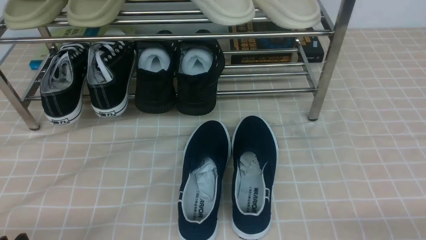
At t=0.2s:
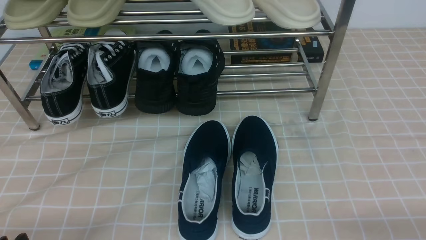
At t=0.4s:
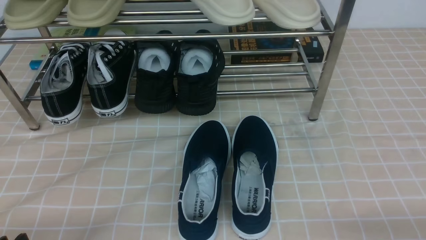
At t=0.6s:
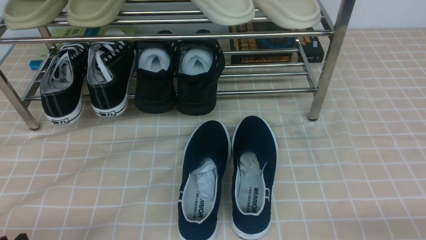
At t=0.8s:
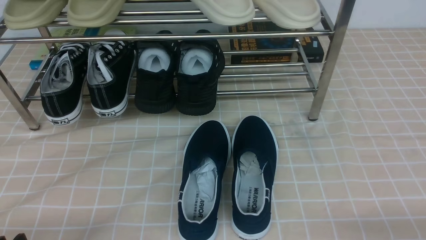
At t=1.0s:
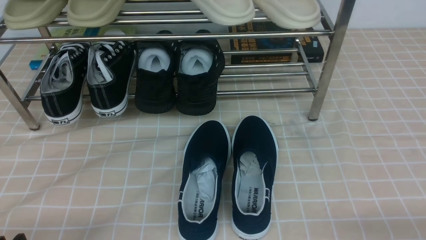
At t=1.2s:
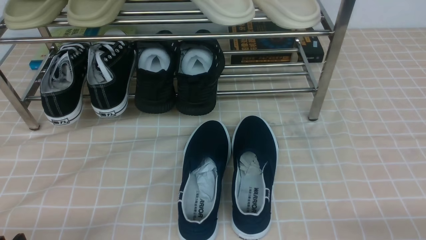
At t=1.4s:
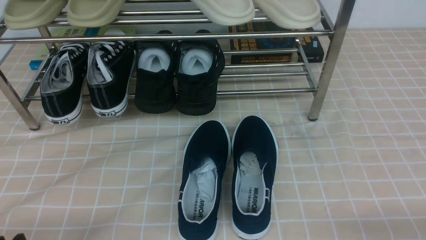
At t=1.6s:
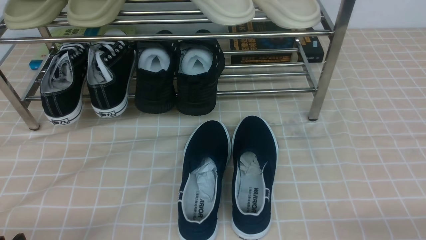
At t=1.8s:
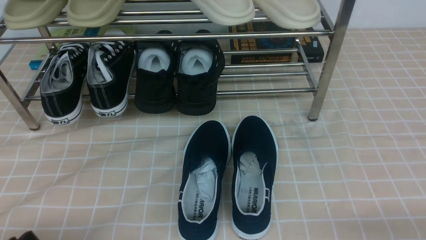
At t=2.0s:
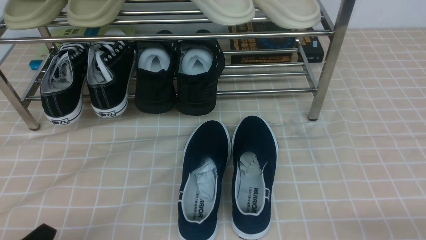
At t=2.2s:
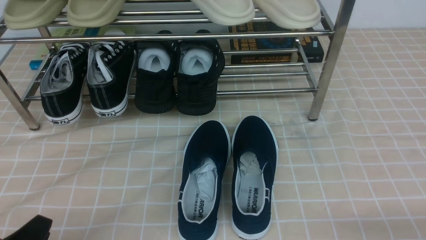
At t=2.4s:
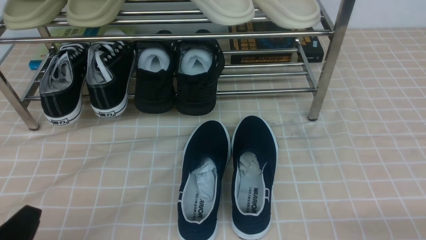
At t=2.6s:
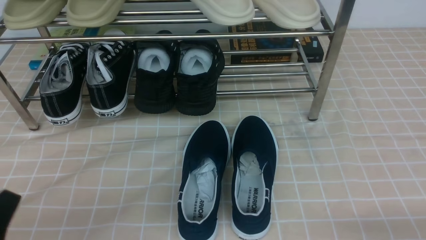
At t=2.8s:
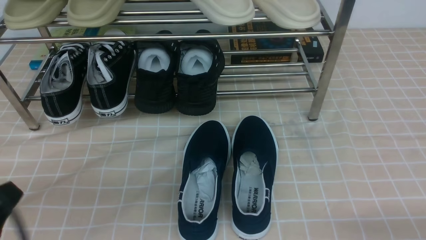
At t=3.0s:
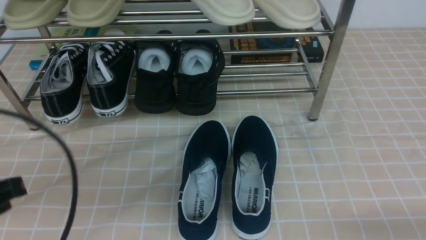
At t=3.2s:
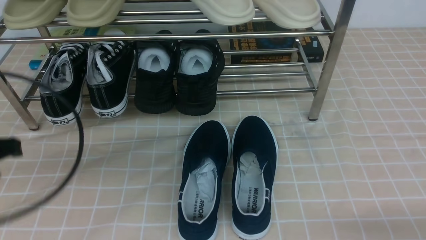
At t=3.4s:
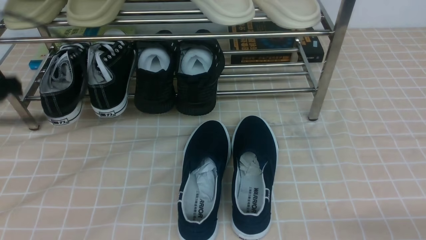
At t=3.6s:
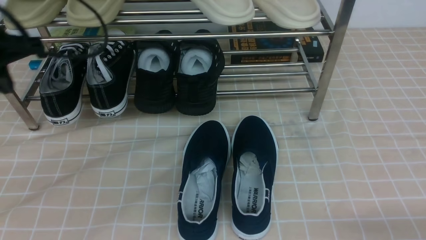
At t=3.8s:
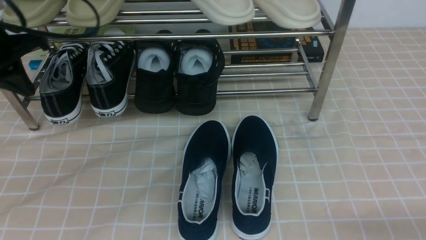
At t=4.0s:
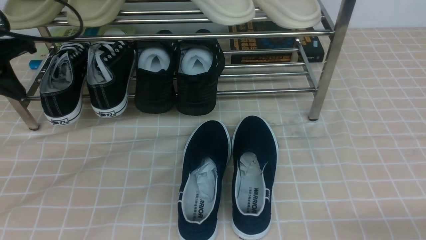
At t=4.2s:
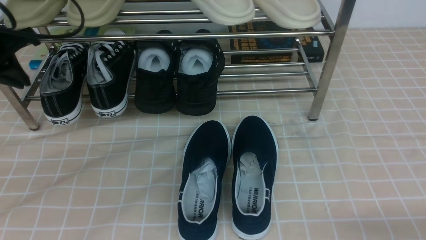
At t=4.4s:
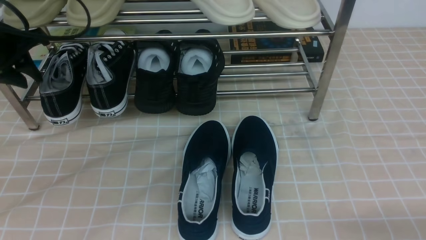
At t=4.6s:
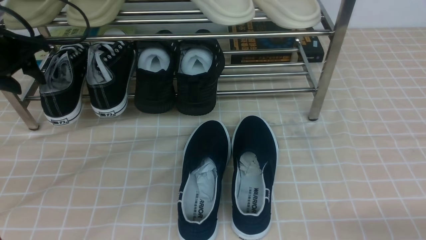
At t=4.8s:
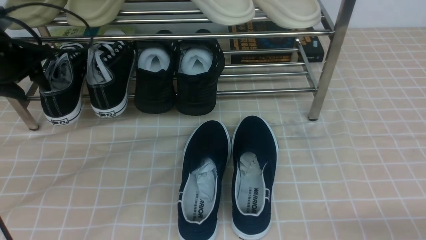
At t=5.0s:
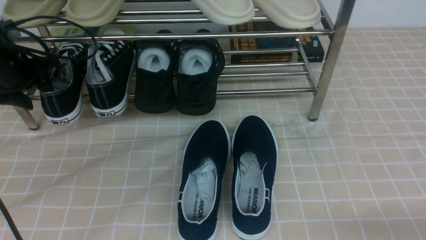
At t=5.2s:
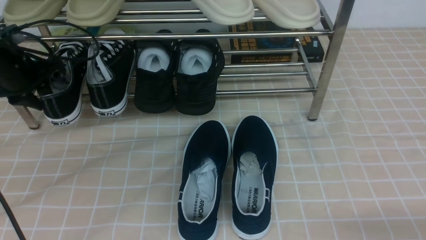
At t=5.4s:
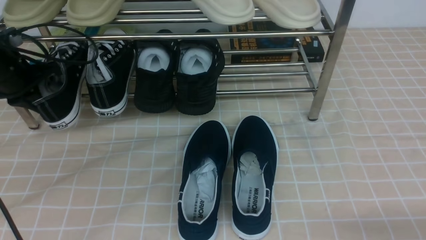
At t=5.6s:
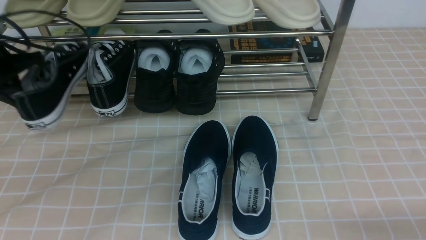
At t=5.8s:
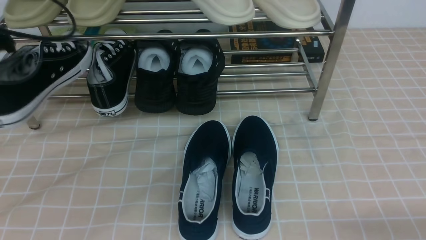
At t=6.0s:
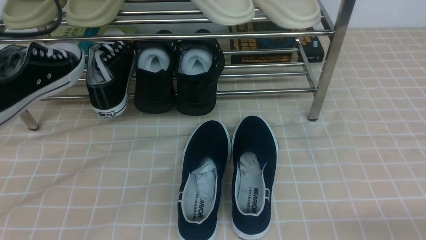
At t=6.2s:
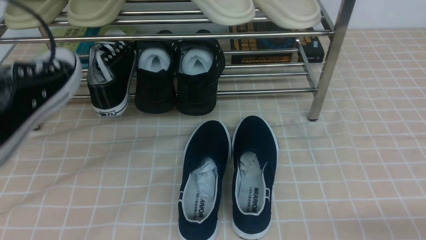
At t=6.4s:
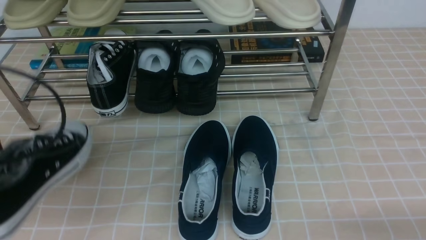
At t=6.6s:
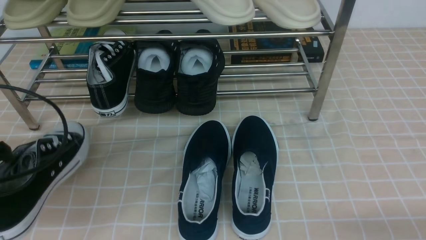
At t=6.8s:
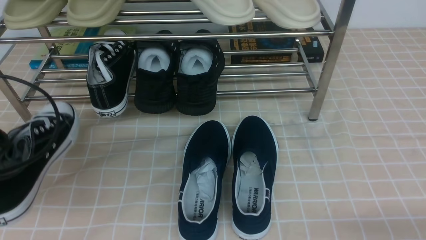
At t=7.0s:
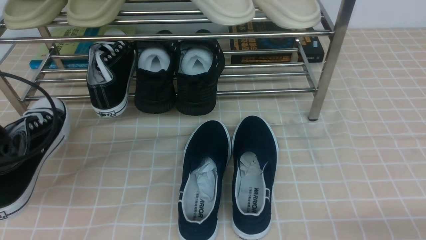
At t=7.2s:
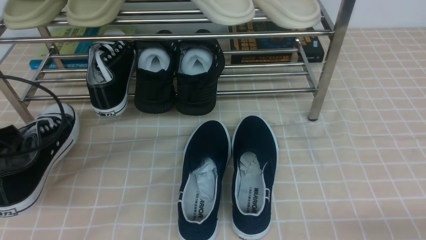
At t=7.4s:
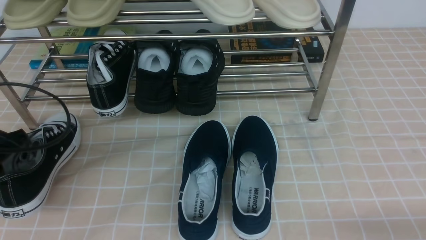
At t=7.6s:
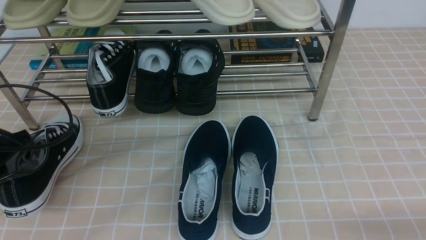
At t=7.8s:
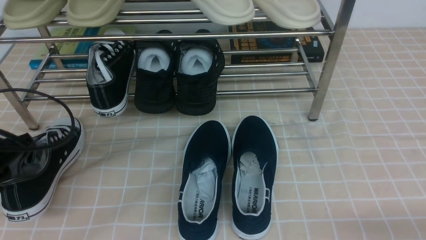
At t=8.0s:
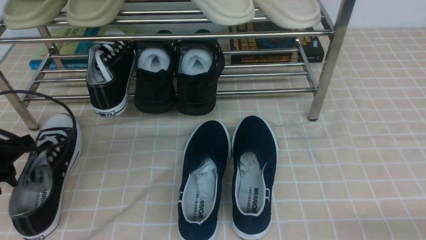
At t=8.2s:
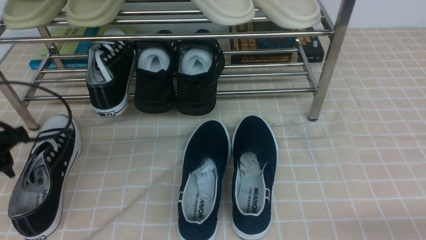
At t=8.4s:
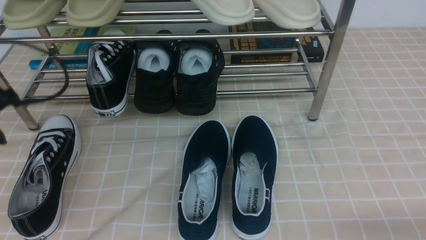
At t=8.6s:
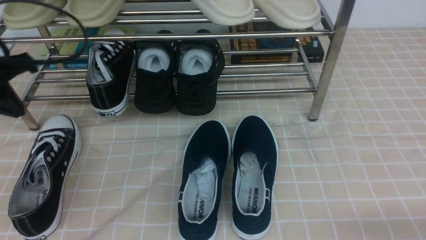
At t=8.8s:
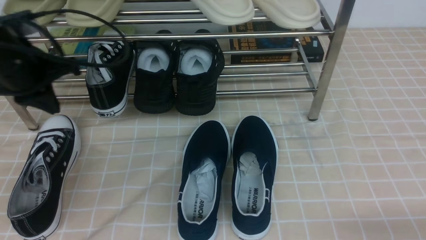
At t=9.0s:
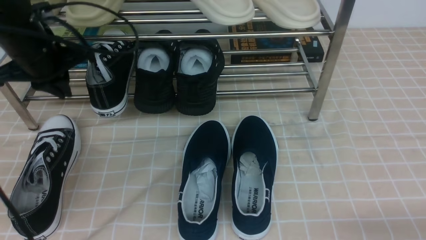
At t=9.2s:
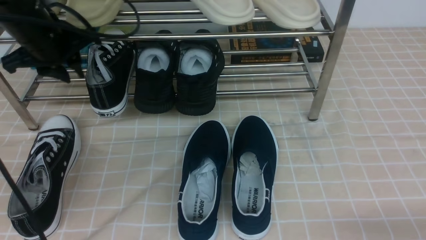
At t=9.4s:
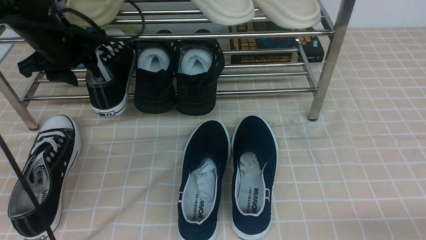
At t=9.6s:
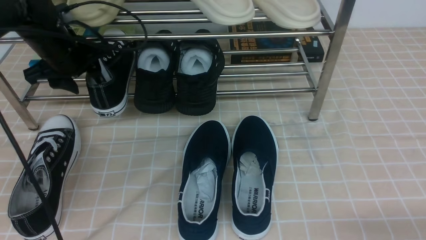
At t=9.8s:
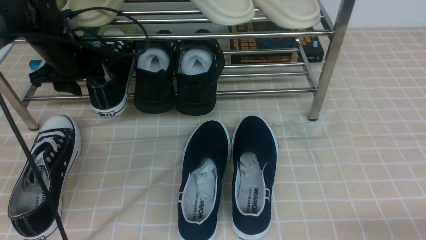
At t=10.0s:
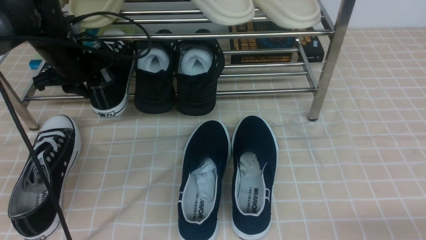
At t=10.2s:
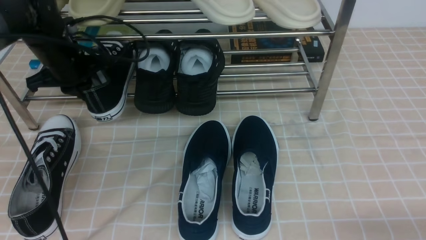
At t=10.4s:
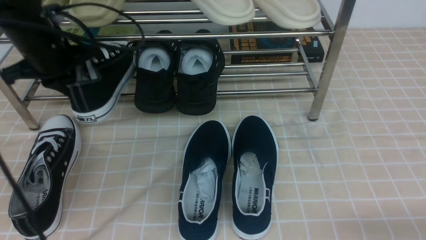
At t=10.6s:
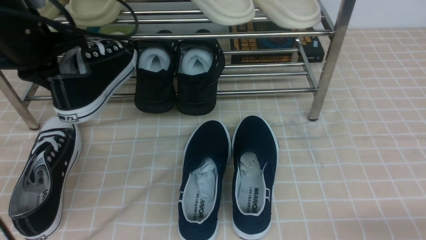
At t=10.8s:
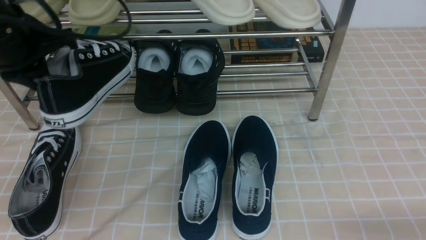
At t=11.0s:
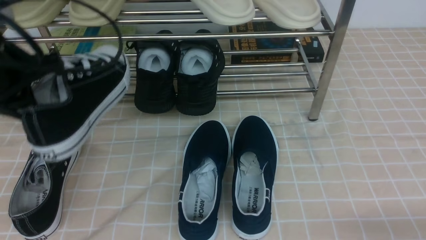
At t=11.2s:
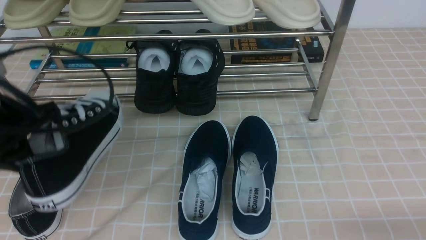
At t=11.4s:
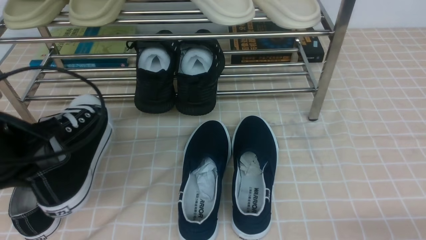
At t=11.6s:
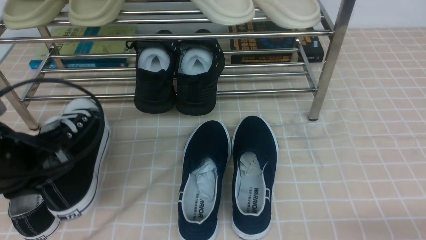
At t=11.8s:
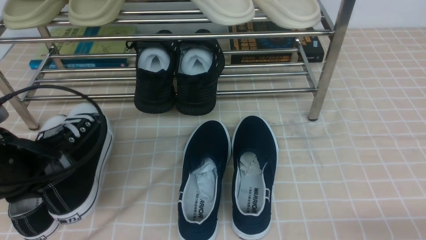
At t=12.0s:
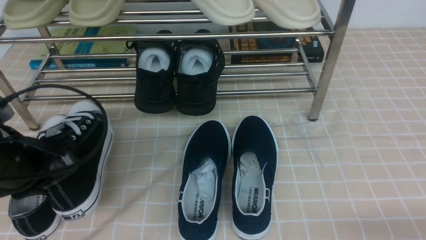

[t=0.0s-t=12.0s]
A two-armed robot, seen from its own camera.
Step, t=0.0s to t=5.2s: use the left arm to clamp a shoe on the left side of the shoe rack.
Step, t=5.4s to t=8.0s: Use your left arm to remove the clamped shoe from the shoe rack and put it down.
Step, t=8.4s to t=10.0s: use the left arm to clamp a shoe on the left side of the shoe rack.
t=0.0s to t=1.6s: Both grippers stay about where they are.
t=1.6s to t=3.0s: The left gripper moves upward and forward, some 15 cm, and closes its fingers.
t=3.0s to t=4.4s: The left gripper moves forward, some 25 cm, and opens up.
t=4.4s to t=6.0s: The left gripper goes about 15 cm backward and upward, and closes up.
t=6.0s to t=7.6s: The left gripper travels downward by about 15 cm.
t=7.6s to t=9.0s: The left gripper goes roughly 15 cm forward, upward and to the right, and opens, then closes again.
t=9.0s to t=10.4s: The left gripper opens, then closes again.
t=10.4s to t=12.0s: The left gripper travels backward and downward by roughly 15 cm.

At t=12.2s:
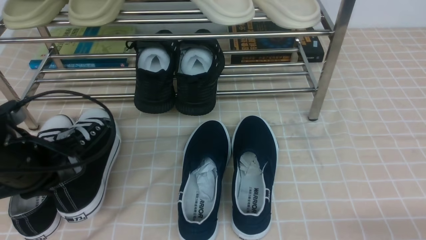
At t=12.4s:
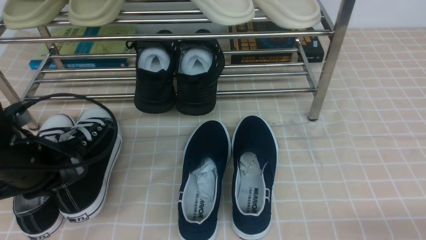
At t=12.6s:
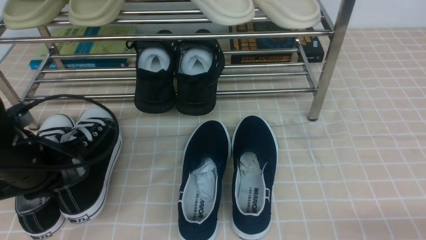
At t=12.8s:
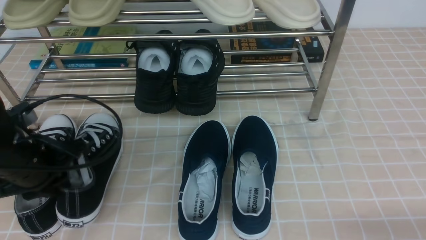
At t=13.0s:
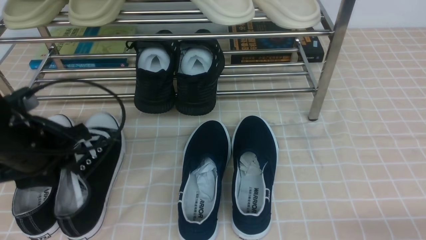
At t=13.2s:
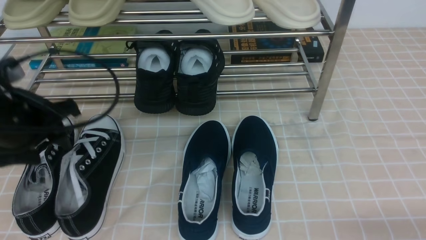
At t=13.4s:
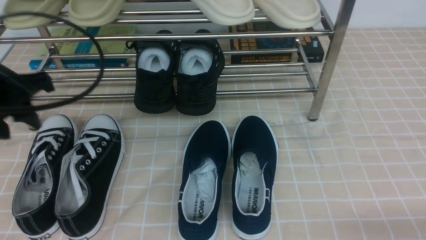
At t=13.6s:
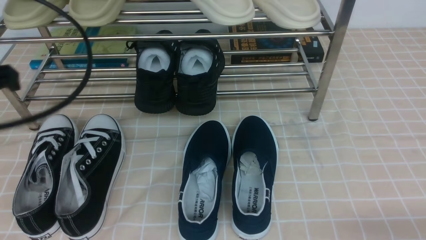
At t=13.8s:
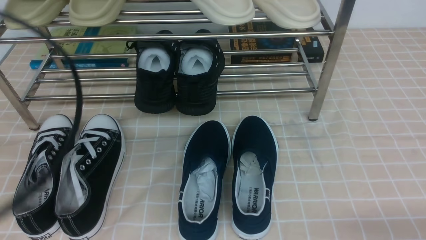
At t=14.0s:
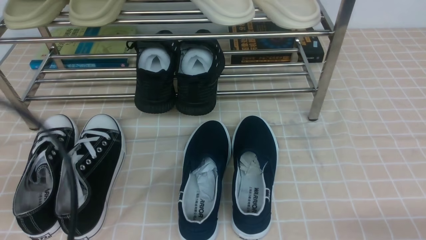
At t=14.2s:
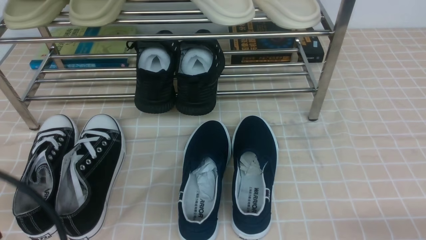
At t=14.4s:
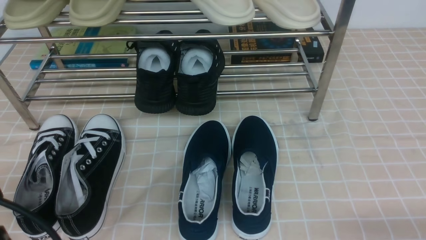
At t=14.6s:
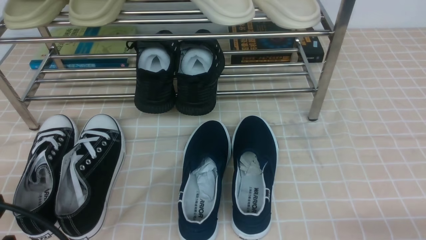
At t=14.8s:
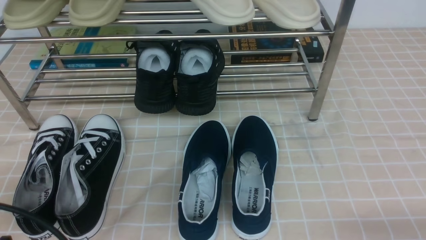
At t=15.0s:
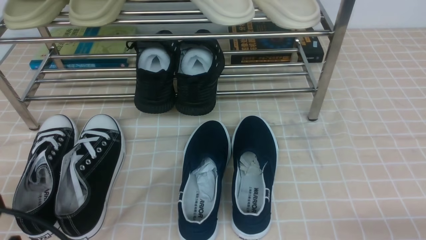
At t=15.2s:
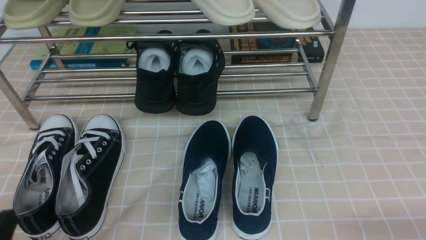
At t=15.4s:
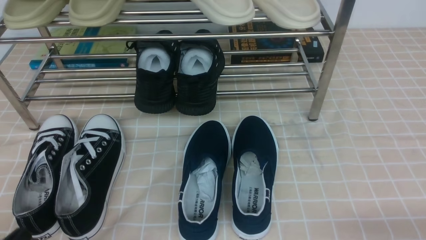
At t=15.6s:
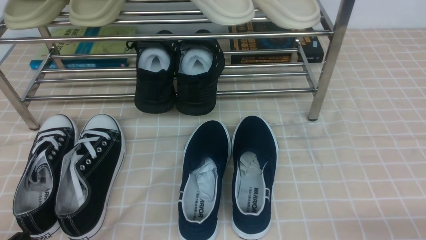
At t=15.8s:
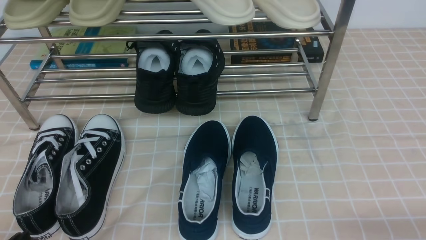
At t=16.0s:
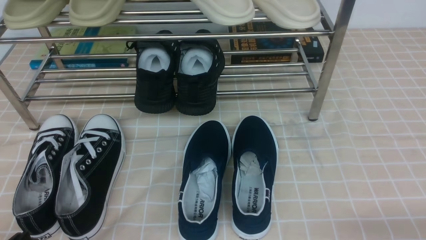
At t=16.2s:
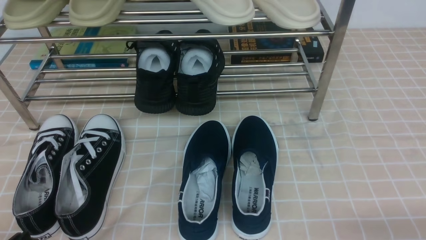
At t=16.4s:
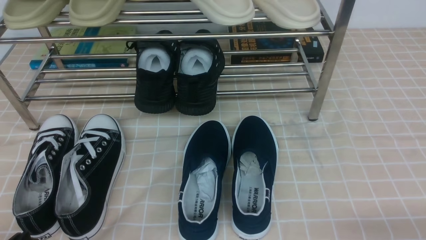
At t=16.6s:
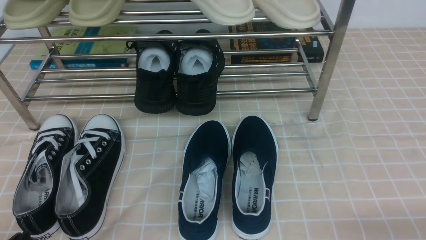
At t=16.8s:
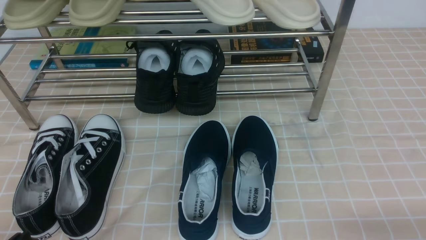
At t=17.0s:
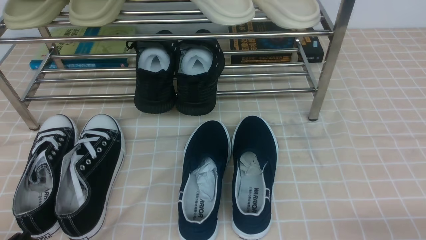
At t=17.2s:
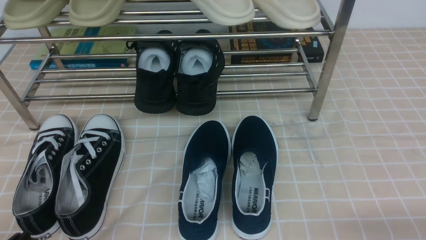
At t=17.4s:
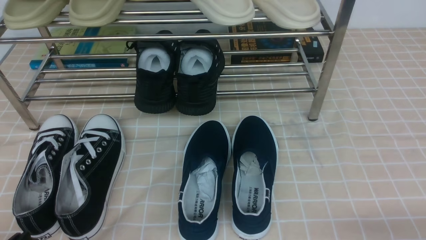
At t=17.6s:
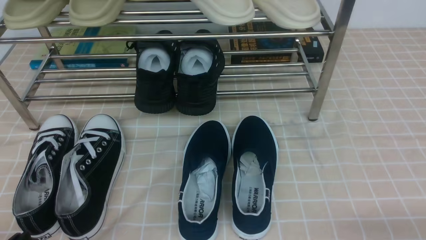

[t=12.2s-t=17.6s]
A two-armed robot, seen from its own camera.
t=12.2s to t=13.6s: The left gripper shifts approximately 15 cm upward, and opens, then closes again.
t=13.6s to t=15.0s: The left gripper goes some 20 cm downward and backward.
t=15.0s to t=16.2s: The left gripper goes about 10 cm downward.
t=16.2s to t=17.6s: Neither gripper changes place.
